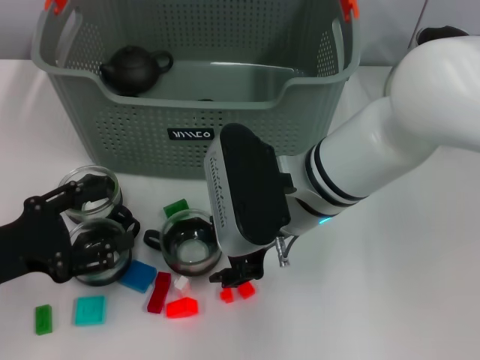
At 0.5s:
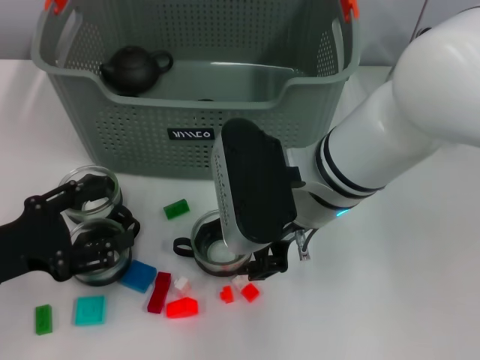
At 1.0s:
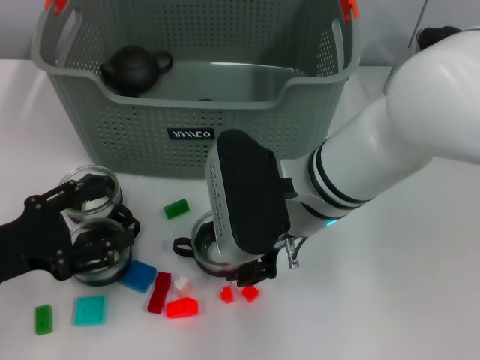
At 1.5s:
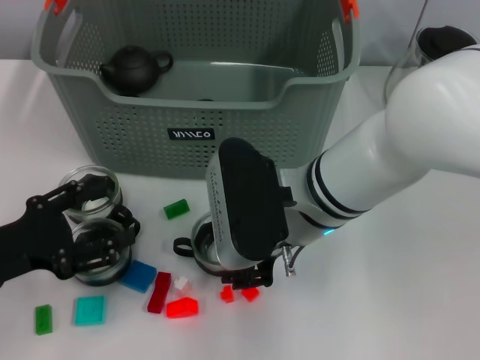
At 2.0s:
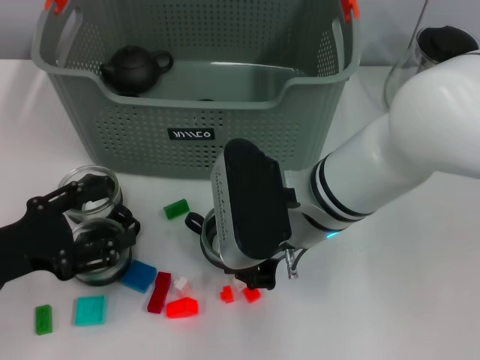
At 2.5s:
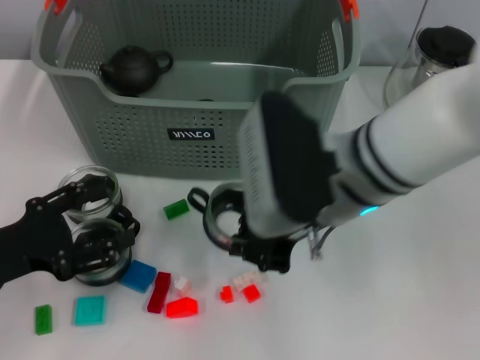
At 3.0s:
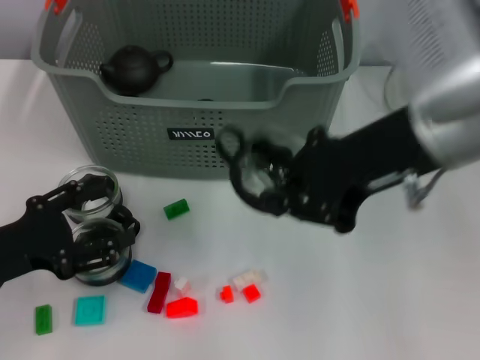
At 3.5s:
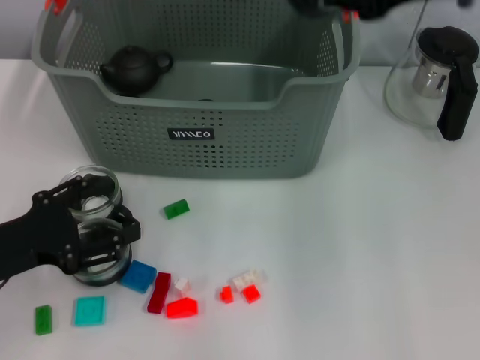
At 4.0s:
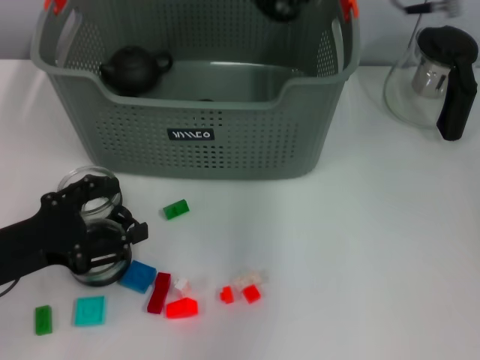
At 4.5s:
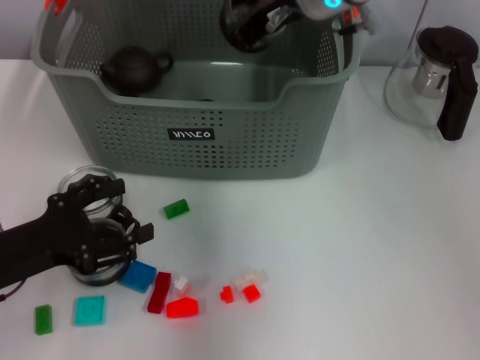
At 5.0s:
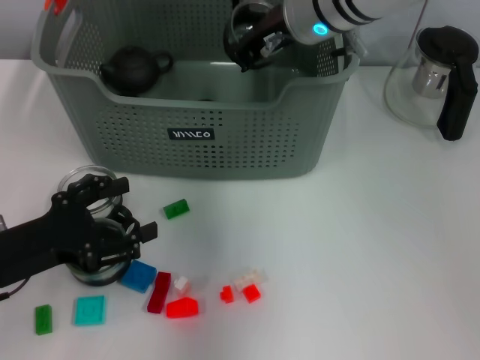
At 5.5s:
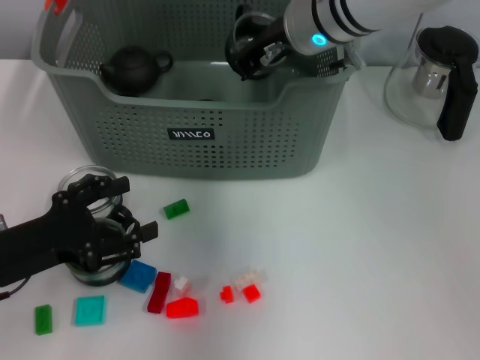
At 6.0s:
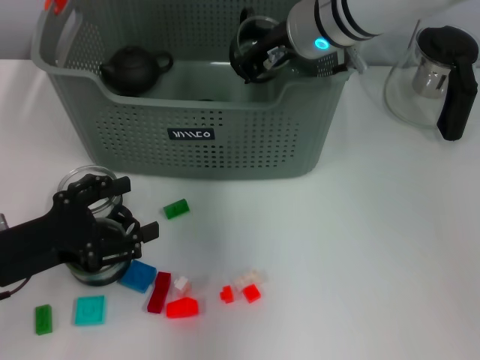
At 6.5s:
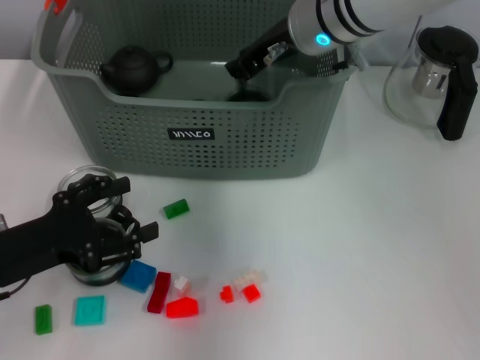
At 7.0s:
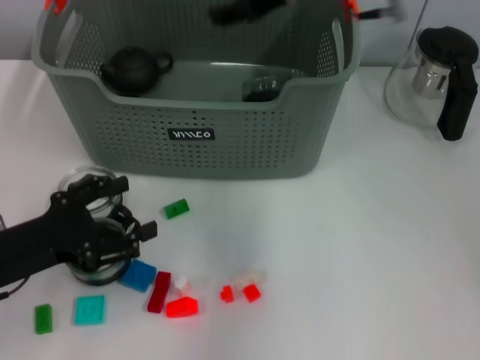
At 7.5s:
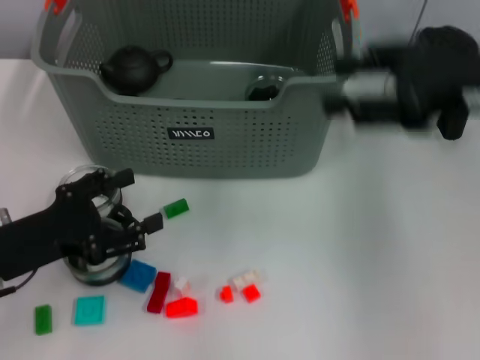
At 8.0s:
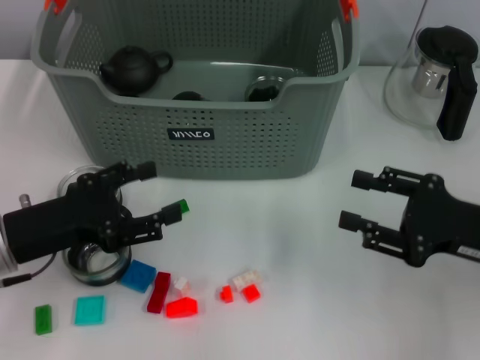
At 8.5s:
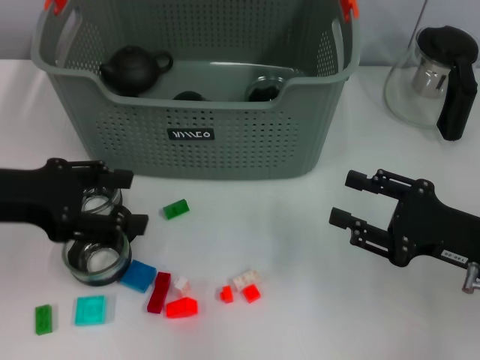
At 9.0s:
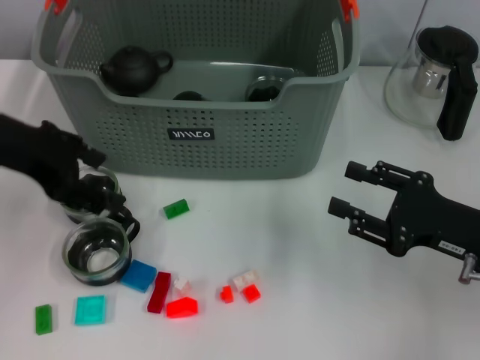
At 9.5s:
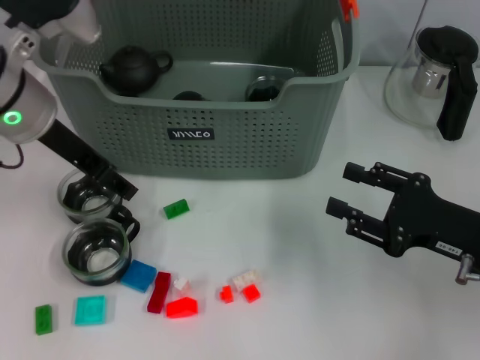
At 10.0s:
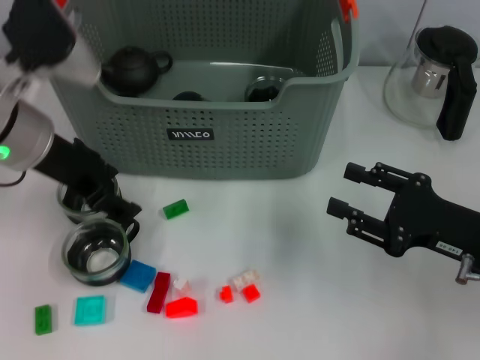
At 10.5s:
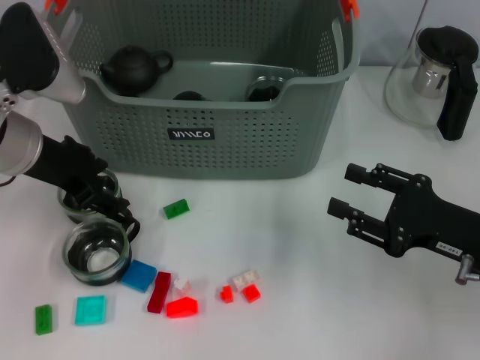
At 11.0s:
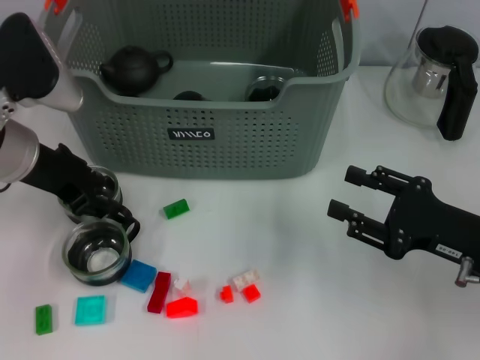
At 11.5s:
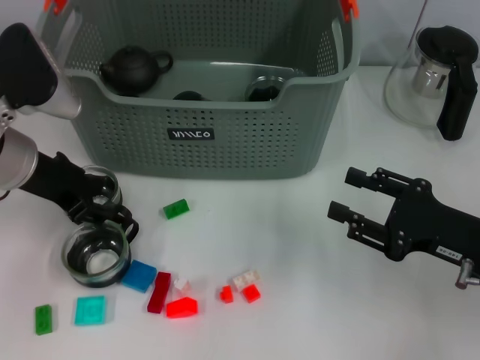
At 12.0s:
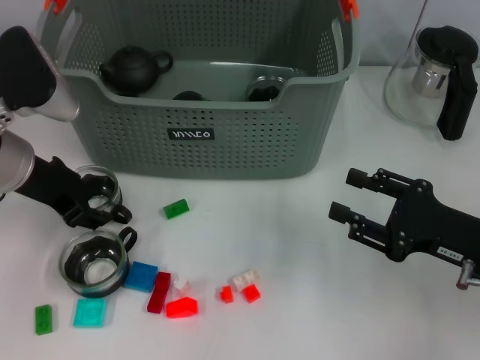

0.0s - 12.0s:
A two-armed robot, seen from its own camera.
Task of the whole recording: pick up the teacup on the table and place it into the storage bin, pick up the block on the table and place it into the storage bin.
Step, 2.0s - 6.5s: Place the cup in the storage box with right gripper.
0.0s - 2.0s: The right gripper closes up.
2.0s - 4.0s: The right gripper goes about 20 cm upward, forward and to the right.
4.0s - 6.0s: The right gripper is displaced downward and to the left by approximately 10 cm.
6.0s - 8.0s: The right gripper heads to the right, backward and downward, covering about 30 cm, and opens.
8.0s - 10.0s: The left gripper shifts roughly 15 cm upward, forward and to the right.
10.0s - 12.0s: The grippers stay close to where they were, moving slightly.

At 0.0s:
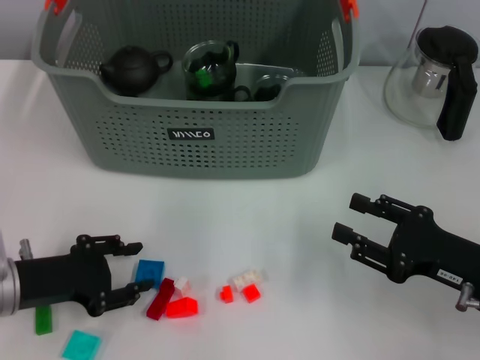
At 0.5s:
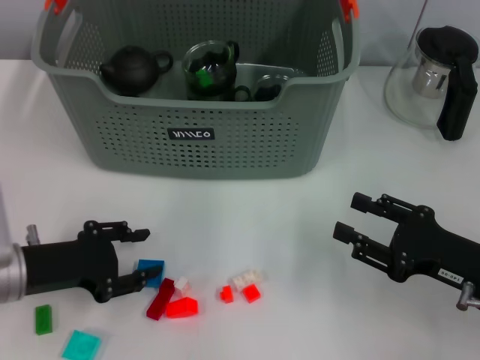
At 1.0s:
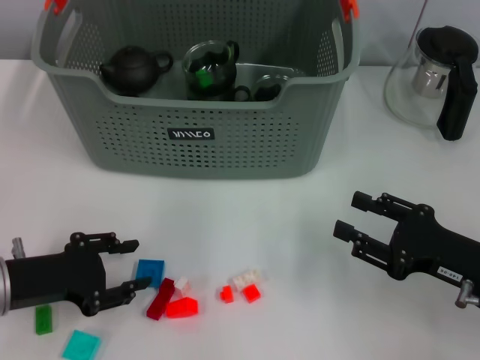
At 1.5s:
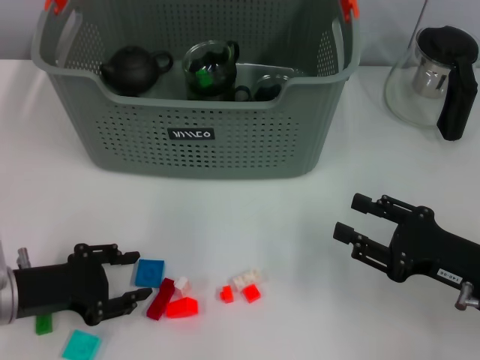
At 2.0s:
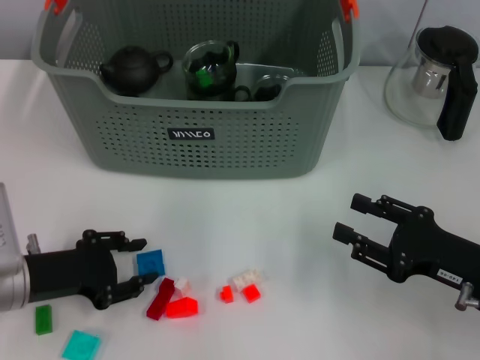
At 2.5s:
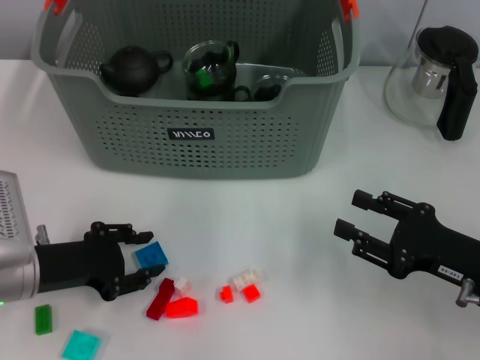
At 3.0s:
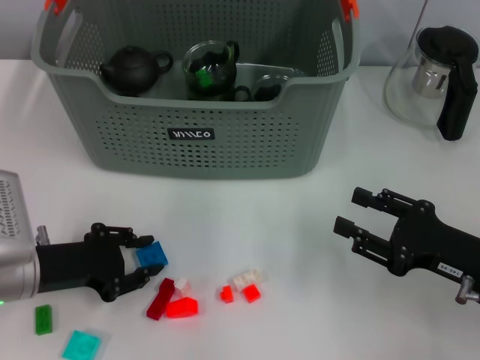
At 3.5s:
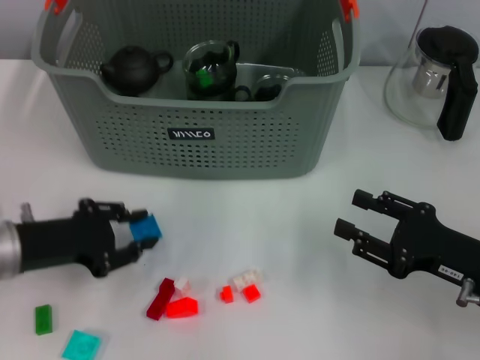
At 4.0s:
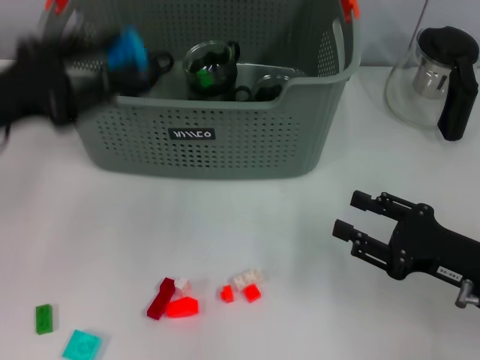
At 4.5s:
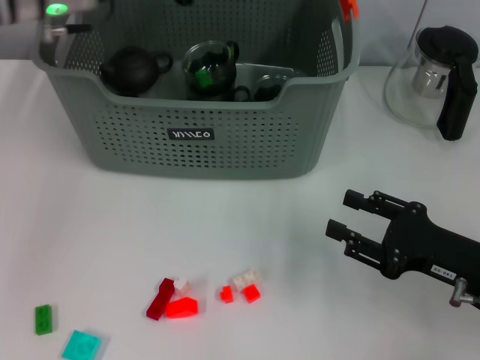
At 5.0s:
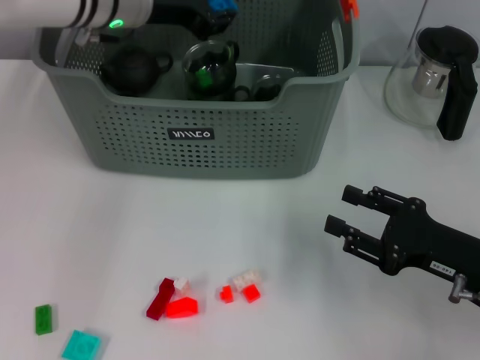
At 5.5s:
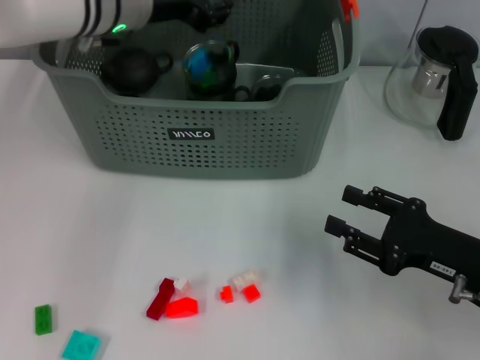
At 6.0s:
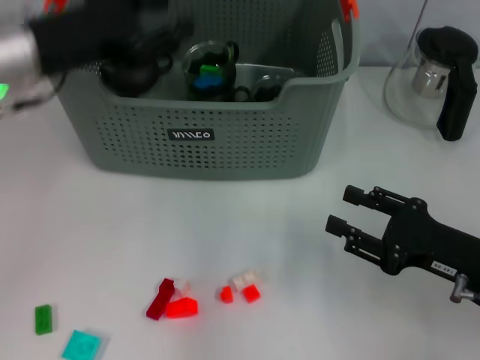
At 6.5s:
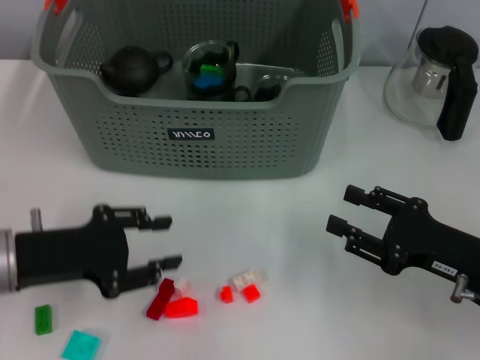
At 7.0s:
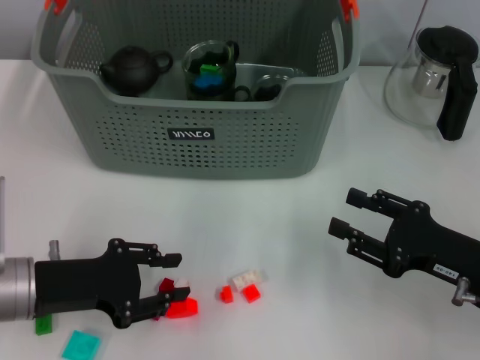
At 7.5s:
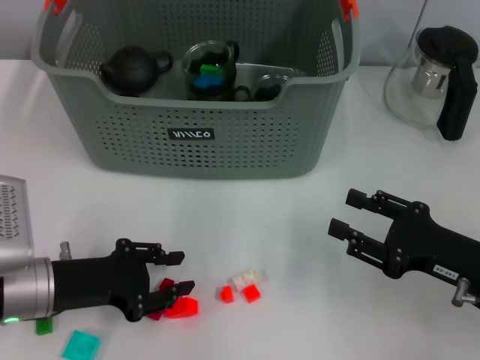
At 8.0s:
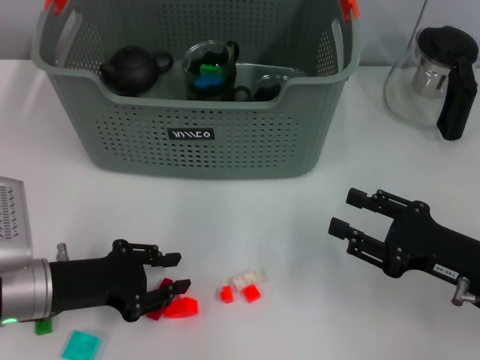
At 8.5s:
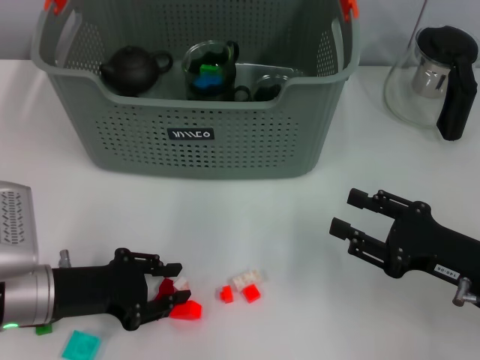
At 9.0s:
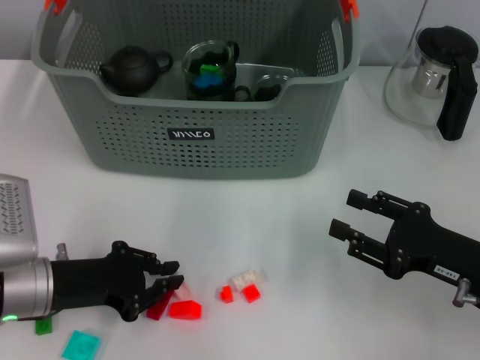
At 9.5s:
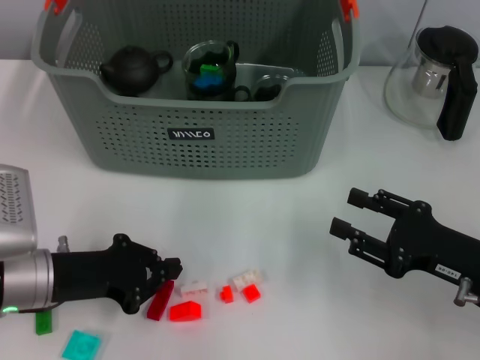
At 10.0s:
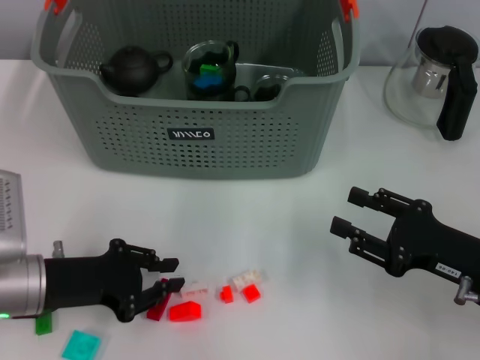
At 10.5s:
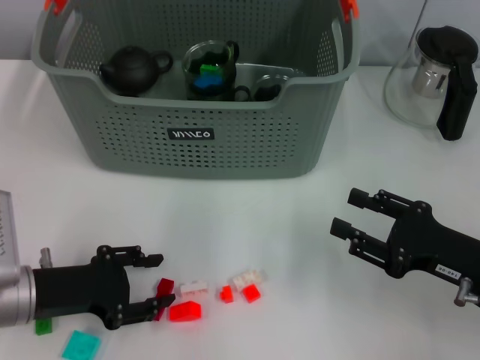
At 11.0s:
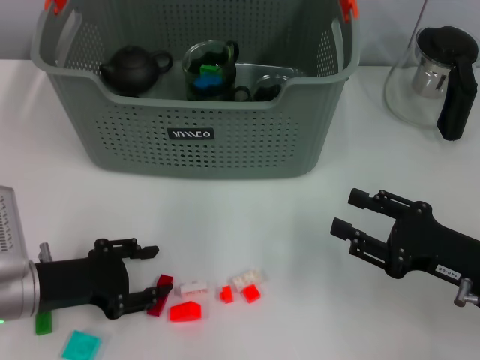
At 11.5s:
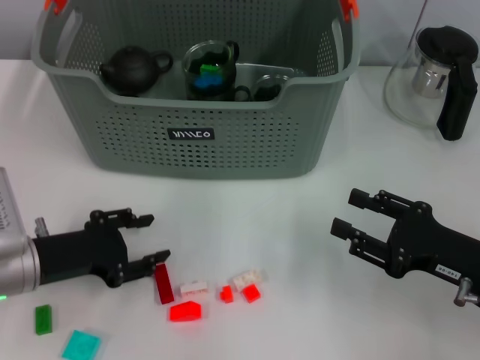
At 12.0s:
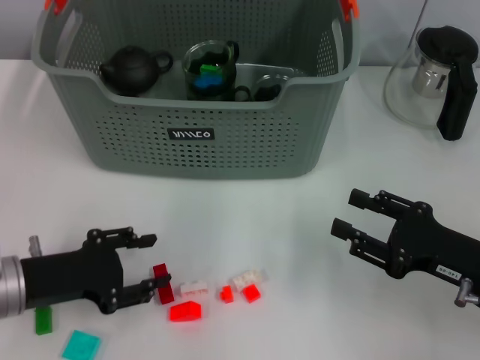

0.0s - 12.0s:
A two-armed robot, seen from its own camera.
Task of the whole recording: pick up the teacup on the table and place it into the storage bin, pick up the block on the table and place it into the storage bin.
Step, 0.0s - 3.0s: Grasp the dark blue block with left gripper.
Step, 3.5s - 5.5s: Place the dark blue block in the storage box with left gripper.
0.0s - 2.0s: There are only small adjustments of the grippers.
2.0s - 4.0s: The left gripper goes approximately 15 cm upward.
4.0s - 6.0s: The left gripper goes roughly 10 cm forward and to the right.
6.0s - 8.0s: The left gripper heads downward and backward, covering some 20 cm.
8.0s - 10.0s: The left gripper closes.
10.0s - 12.0s: The left gripper opens its fingers.

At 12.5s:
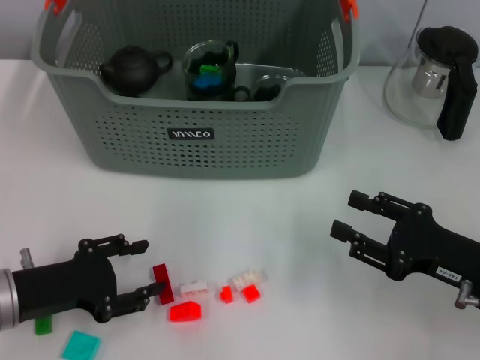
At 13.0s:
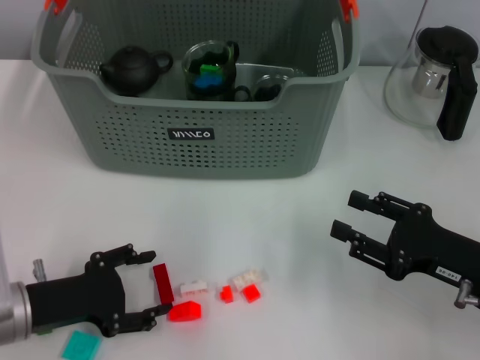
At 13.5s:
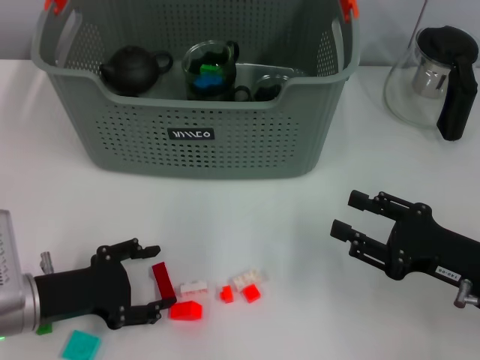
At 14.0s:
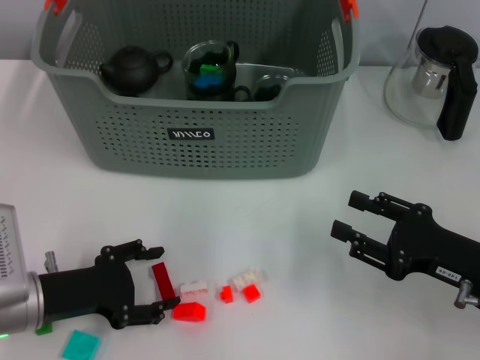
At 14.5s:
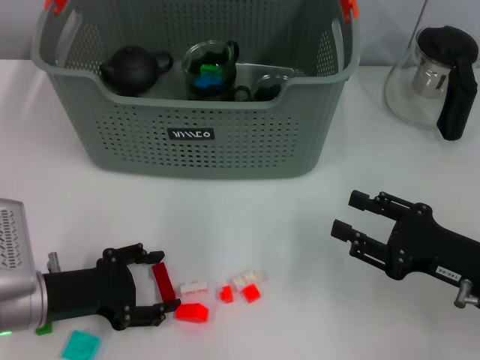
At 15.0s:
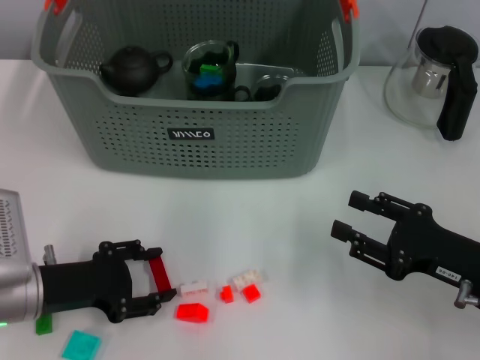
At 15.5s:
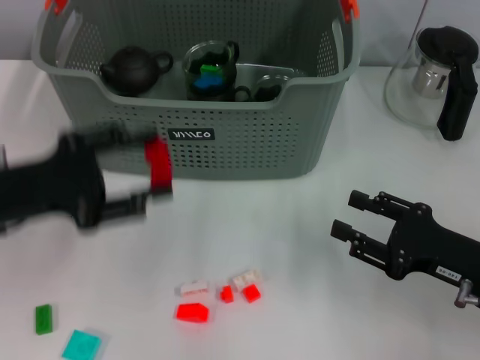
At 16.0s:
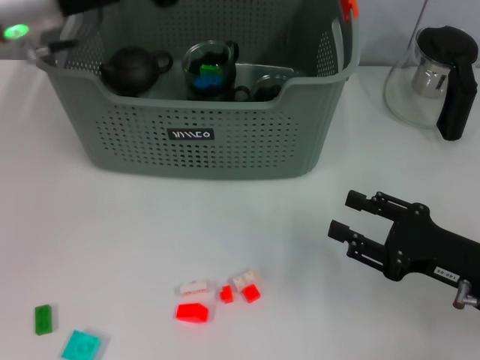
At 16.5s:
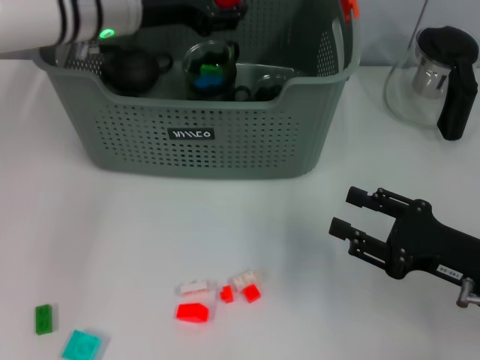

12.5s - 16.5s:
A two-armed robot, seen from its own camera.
Task of the whole recording: pick up the teacup on the table and place it into the storage bin, pick up the block on the table and place it into the storage bin.
Step, 12.5s - 14.5s: Grasp the red block with left gripper.
12.5s - 14.5s: The grippers move only a little.
14.5s - 16.5s: The left gripper heads forward, upward and to the right, covering roughly 30 cm.
